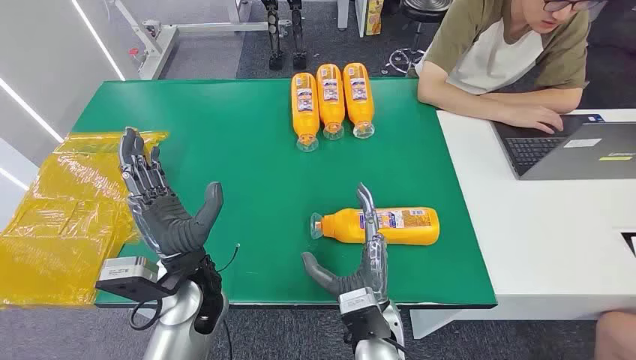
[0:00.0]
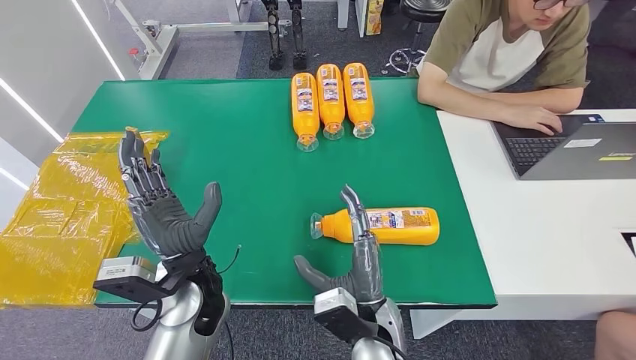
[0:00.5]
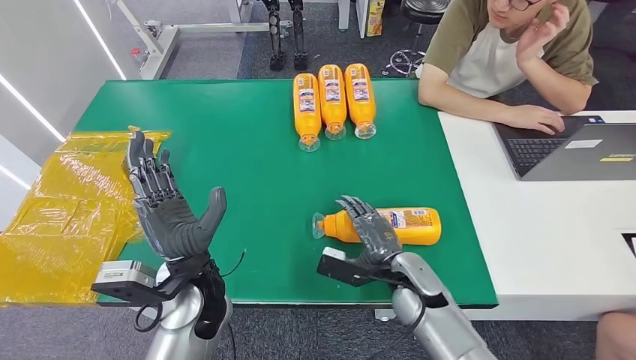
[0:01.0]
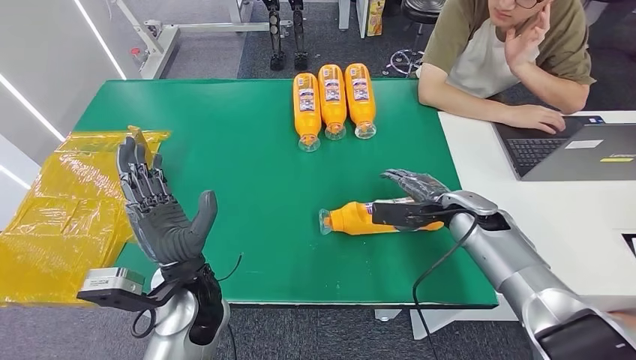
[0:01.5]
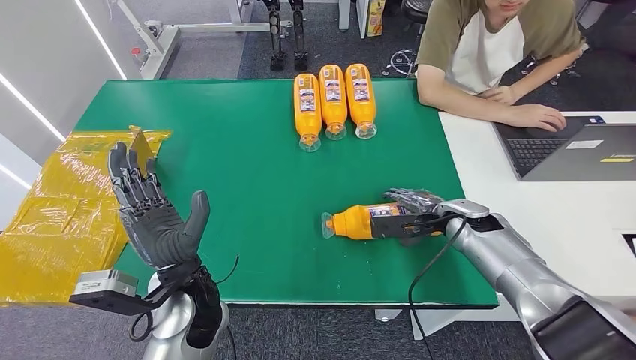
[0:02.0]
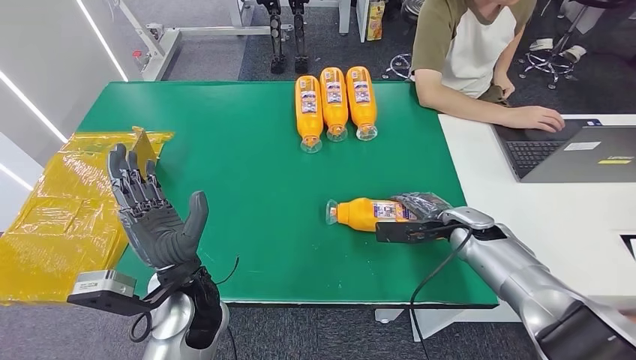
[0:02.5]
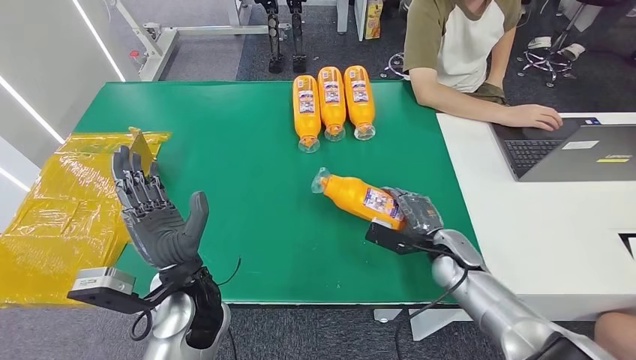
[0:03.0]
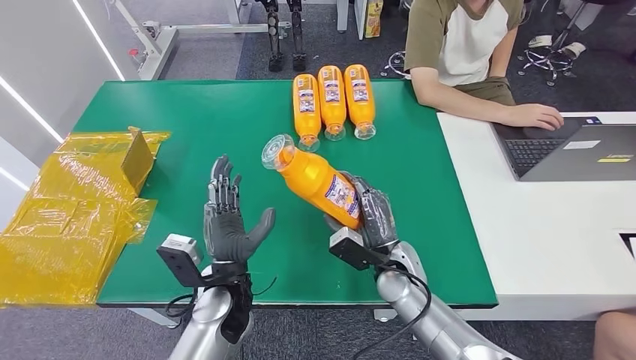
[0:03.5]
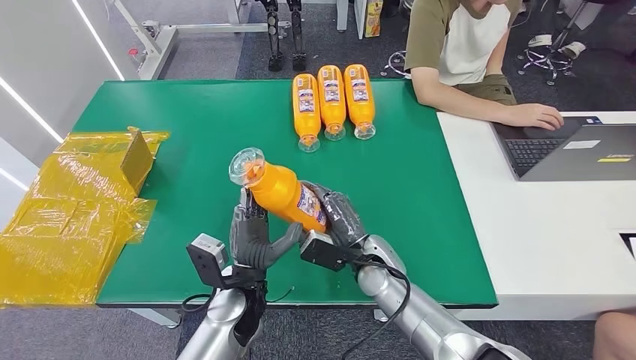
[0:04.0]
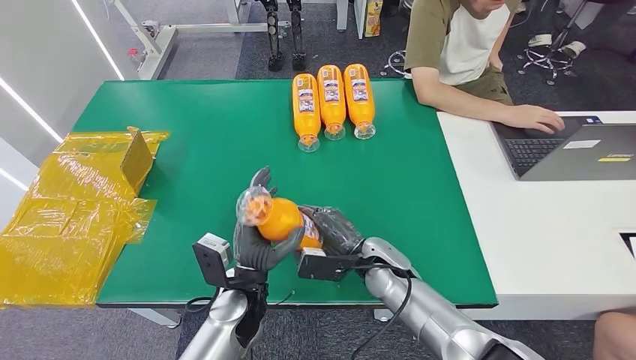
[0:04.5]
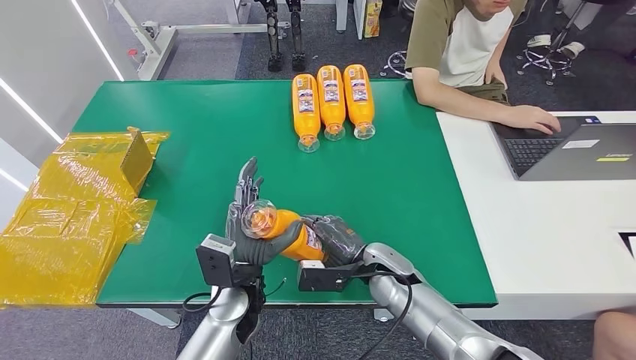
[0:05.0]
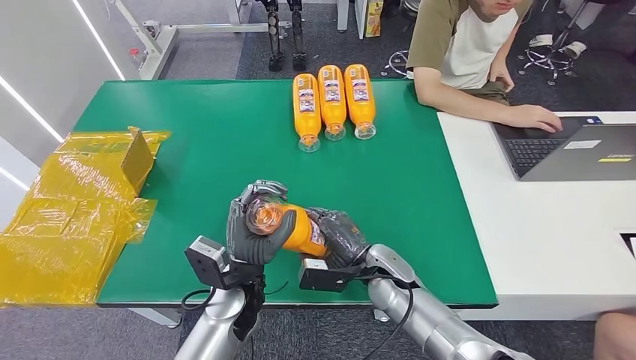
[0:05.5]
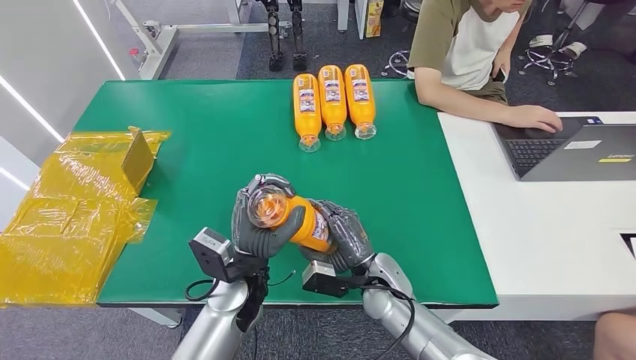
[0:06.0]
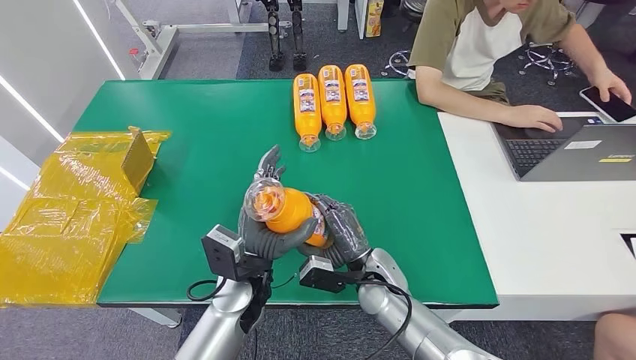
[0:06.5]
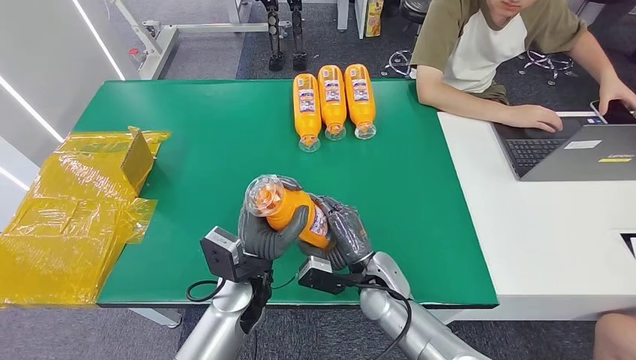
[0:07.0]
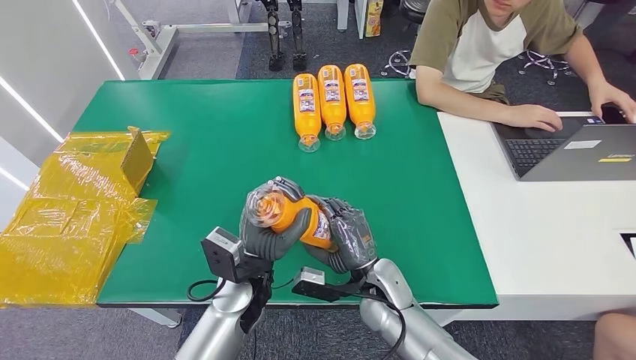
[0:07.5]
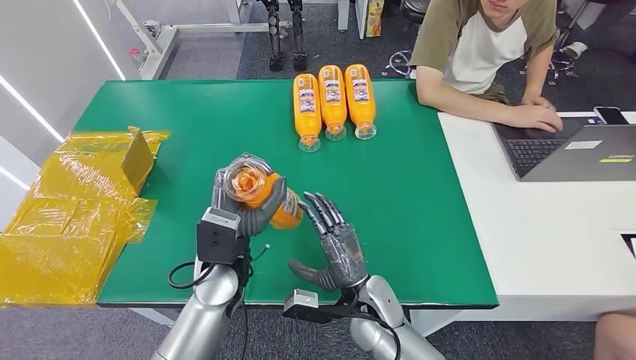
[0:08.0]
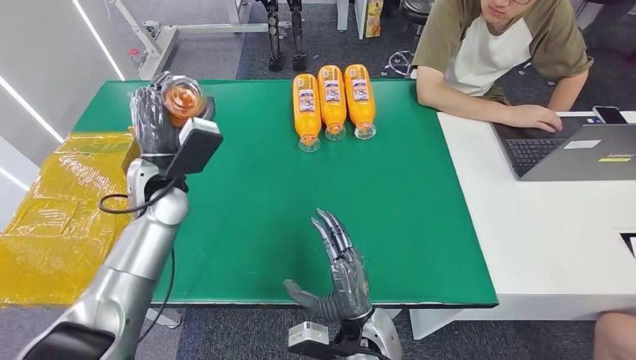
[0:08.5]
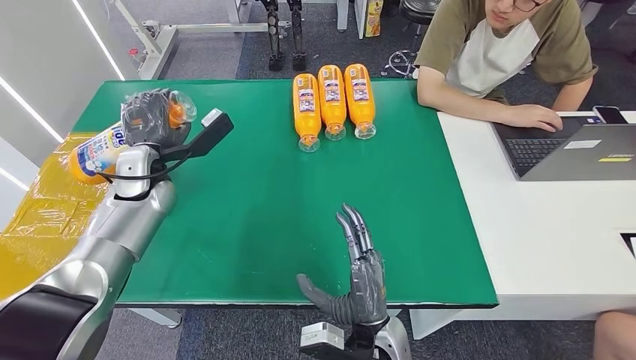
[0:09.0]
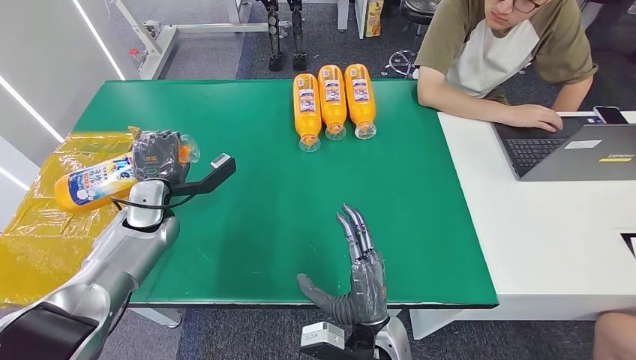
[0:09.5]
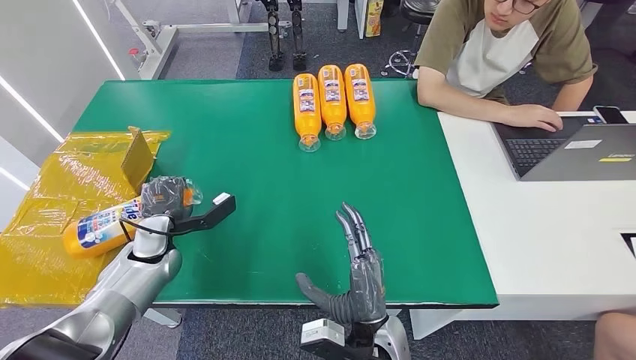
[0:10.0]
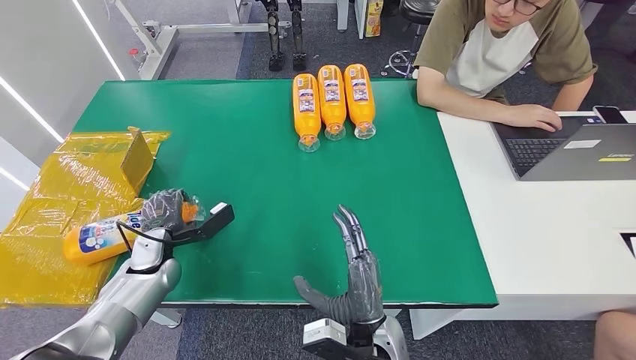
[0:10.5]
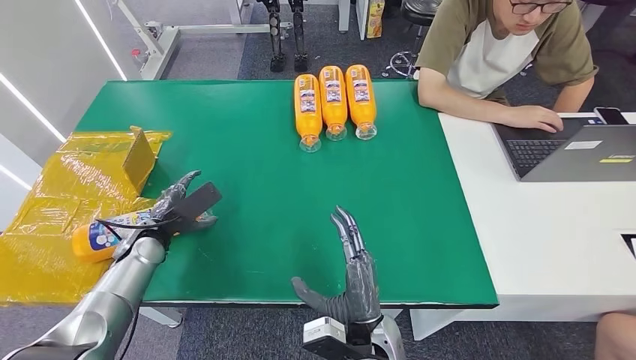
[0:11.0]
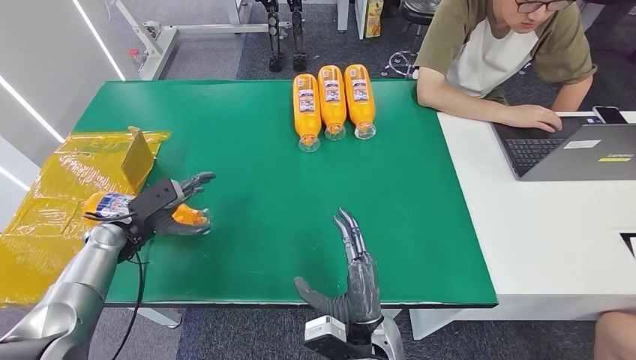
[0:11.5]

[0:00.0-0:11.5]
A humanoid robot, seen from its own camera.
Step, 0:00.0 to 0:03.0: Pick up the bottle from the table.
Step, 0:03.5 to 0:11.5: Turn the bottle to the front side.
0:06.0 to 0:07.5: There are only small adjustments of the hands.
0:09.5 to 0:11.5: The left hand travels to the left and downward by about 10 cm.

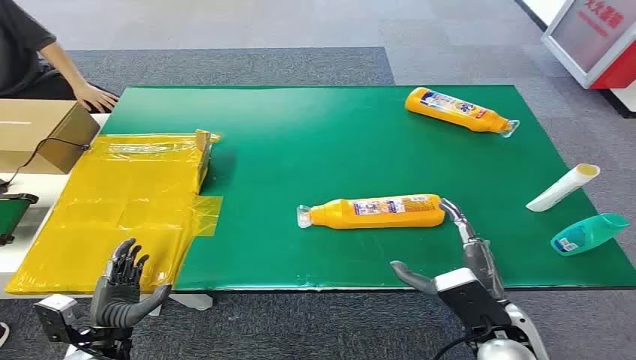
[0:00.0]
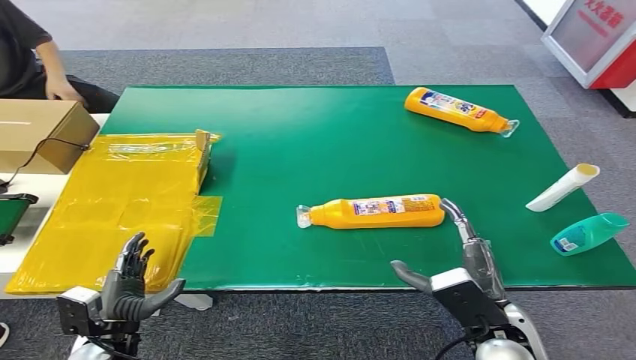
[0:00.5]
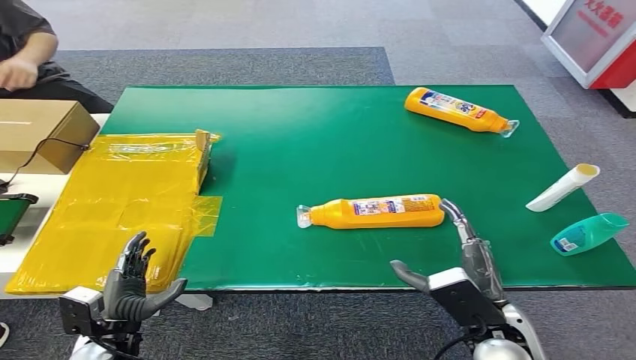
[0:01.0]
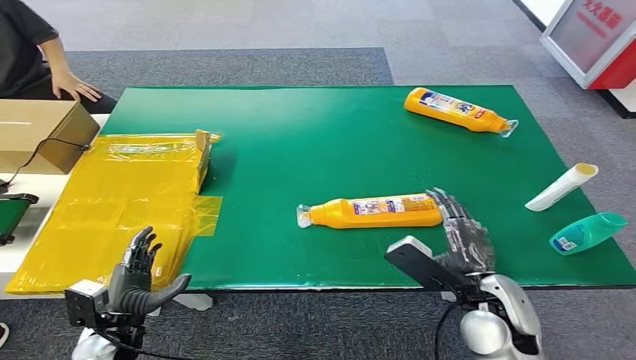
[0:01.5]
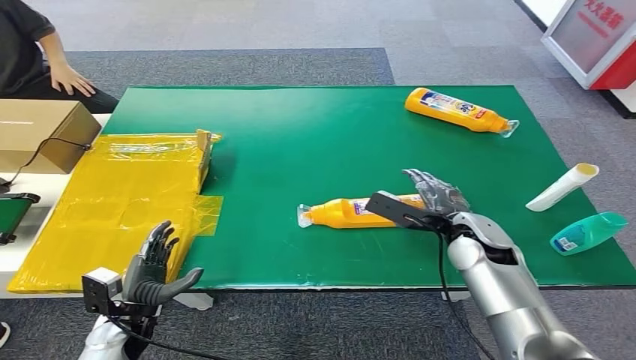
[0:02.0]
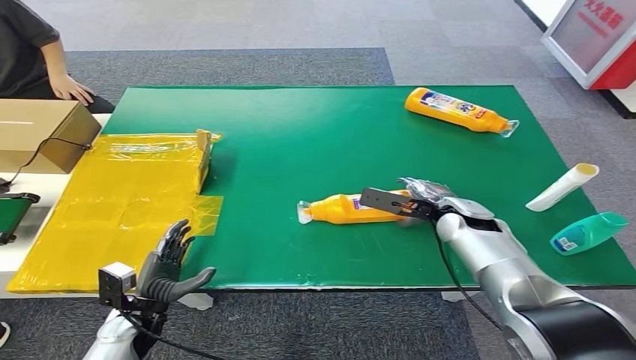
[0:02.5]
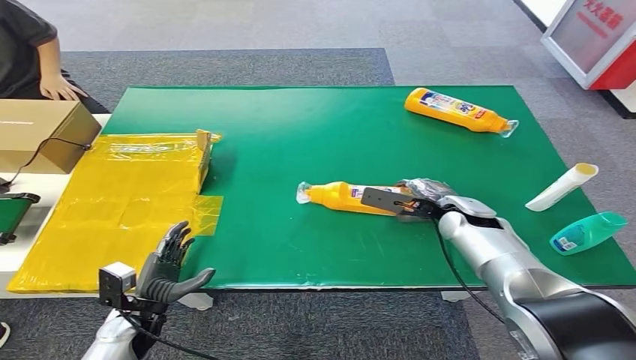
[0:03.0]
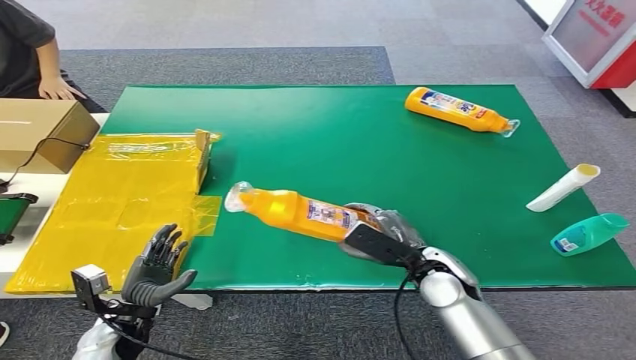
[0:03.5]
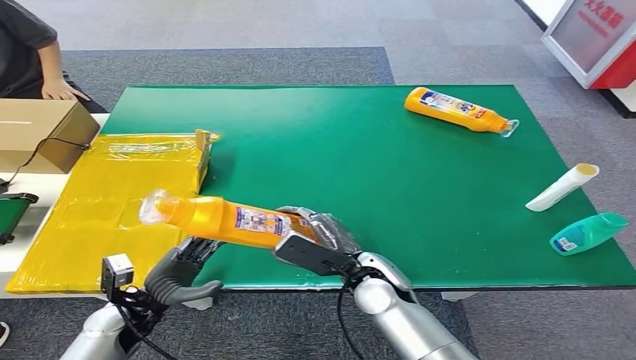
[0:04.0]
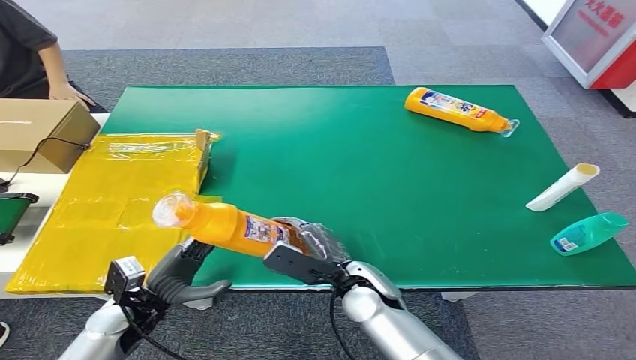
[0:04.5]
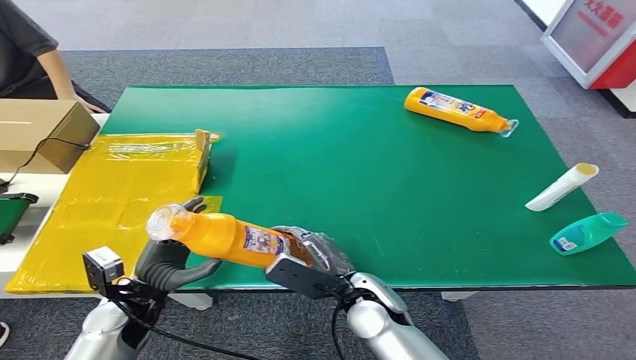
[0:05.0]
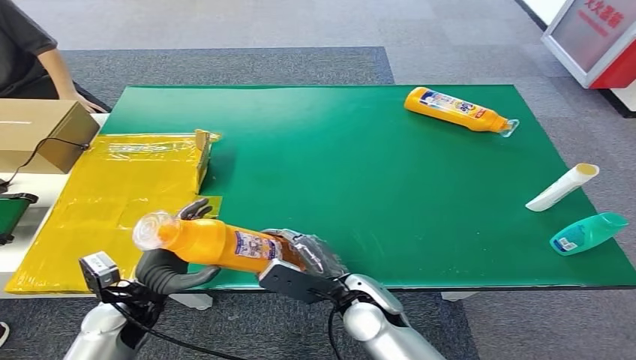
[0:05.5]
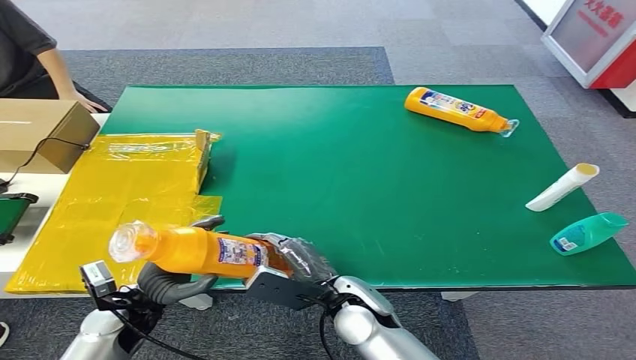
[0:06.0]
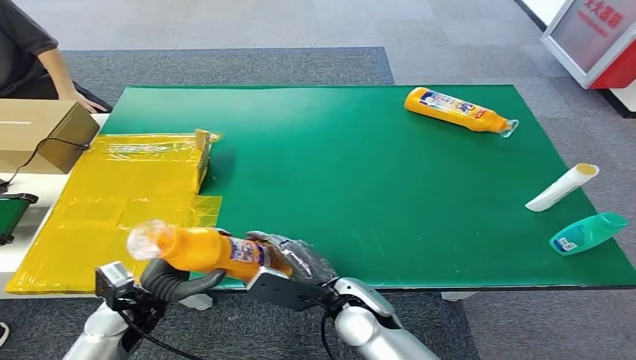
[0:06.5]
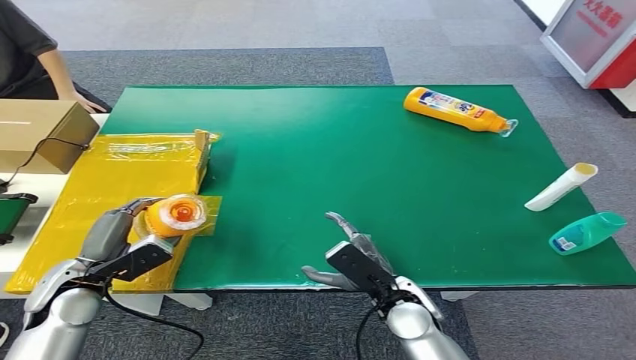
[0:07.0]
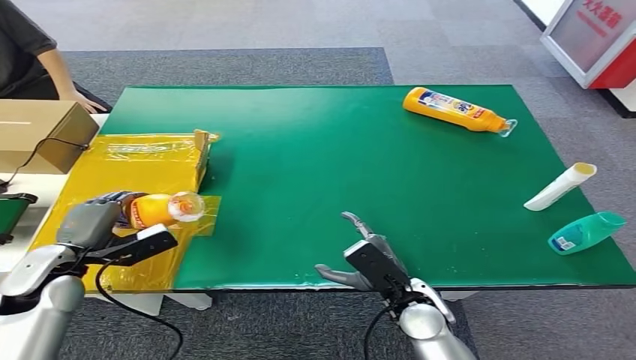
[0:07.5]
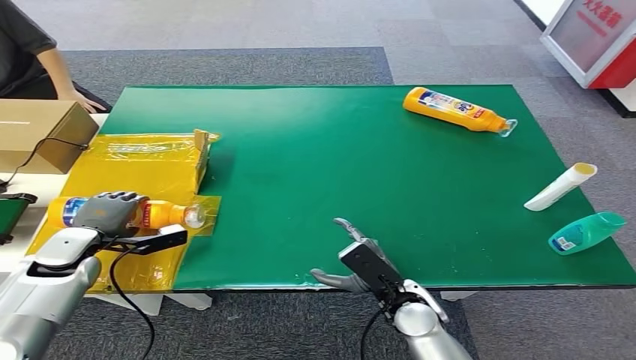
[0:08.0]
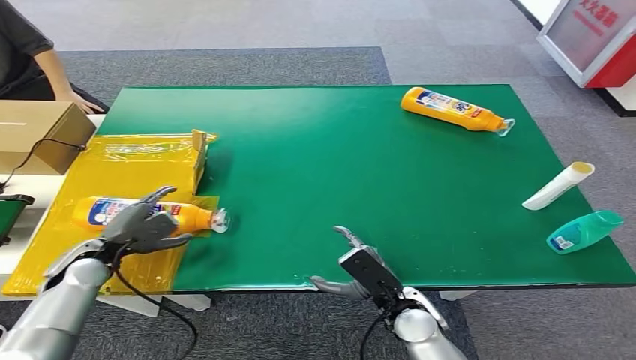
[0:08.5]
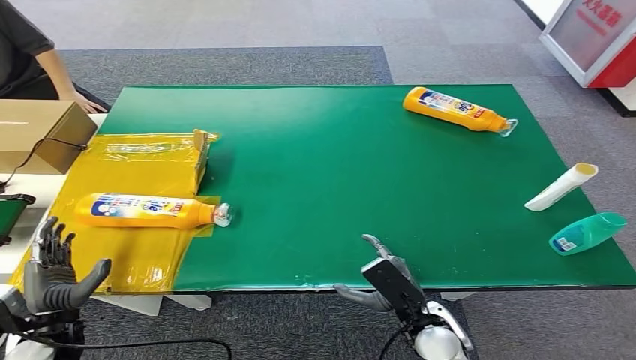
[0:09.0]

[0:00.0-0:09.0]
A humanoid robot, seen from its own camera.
Step, 0:00.0 to 0:03.5: Pick up the bottle from the table.
Step, 0:04.0 to 0:09.0: Turn the bottle to the front side.
0:02.0 to 0:04.5: The right hand travels to the left and backward by some 20 cm.
0:04.5 to 0:07.0: The right hand moves to the right, approximately 5 cm. The left hand moves upward and to the left, approximately 10 cm.
0:07.0 to 0:09.0: The right hand shifts by approximately 5 cm. Meanwhile the left hand heads backward and downward, covering some 10 cm.
